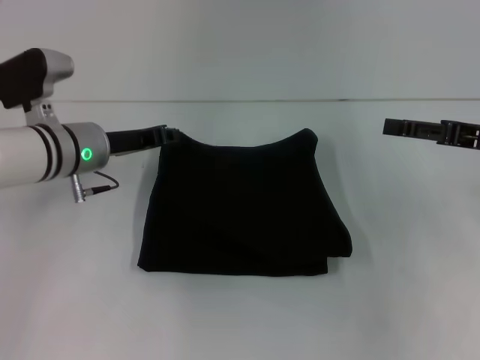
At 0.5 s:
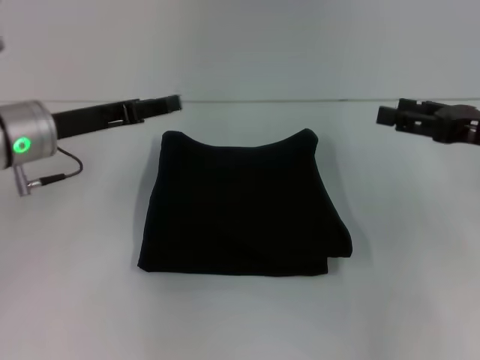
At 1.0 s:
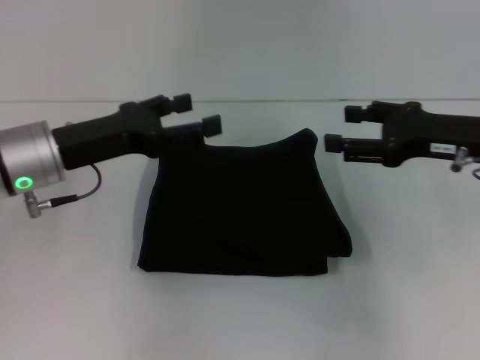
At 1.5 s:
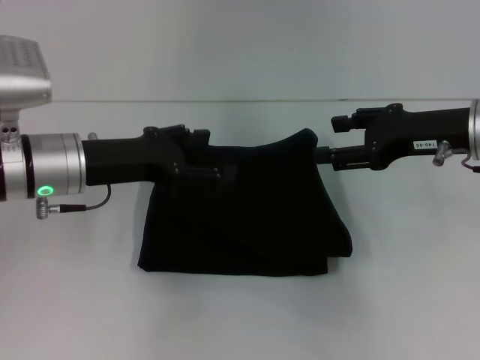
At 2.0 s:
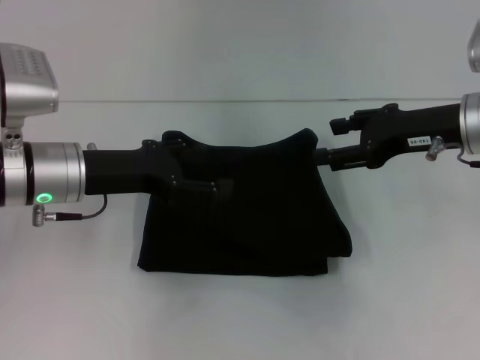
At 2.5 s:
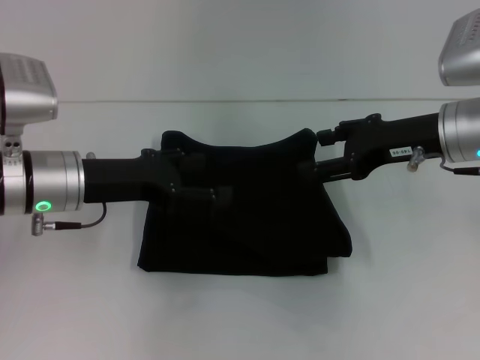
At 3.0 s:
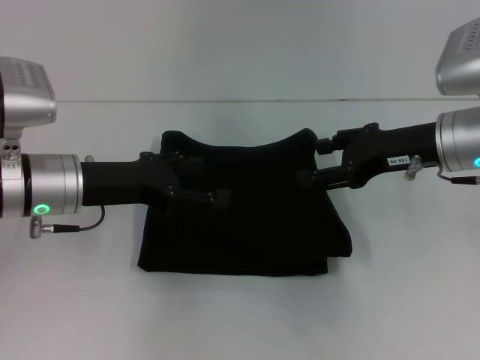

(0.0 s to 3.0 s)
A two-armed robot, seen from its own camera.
0.0 s - 1.5 s: The left gripper travels backward by roughly 5 cm, and opens its fingers. Meanwhile the right gripper heads to the left, covering some 5 cm.
1.5 s - 3.0 s: The grippers move only a little.

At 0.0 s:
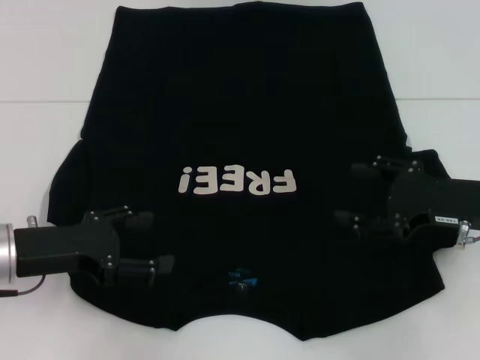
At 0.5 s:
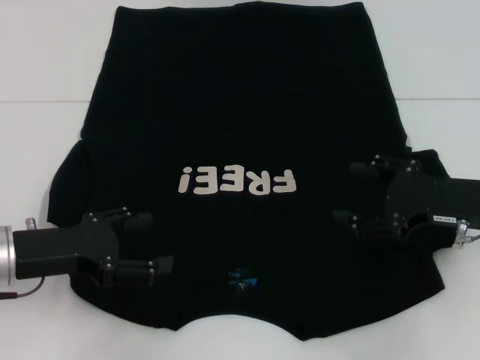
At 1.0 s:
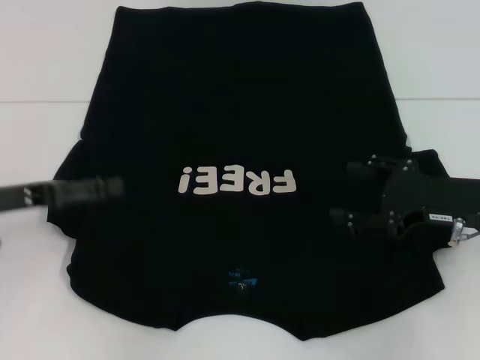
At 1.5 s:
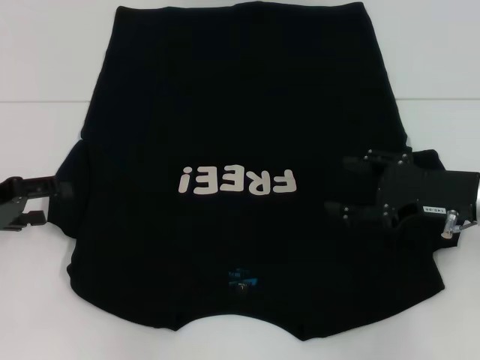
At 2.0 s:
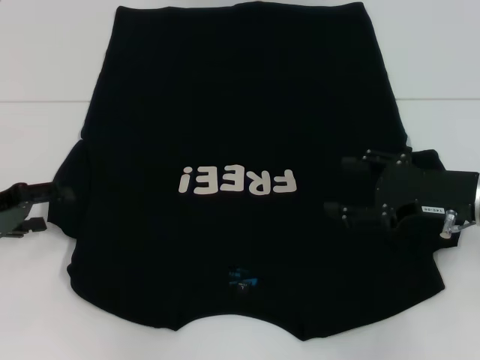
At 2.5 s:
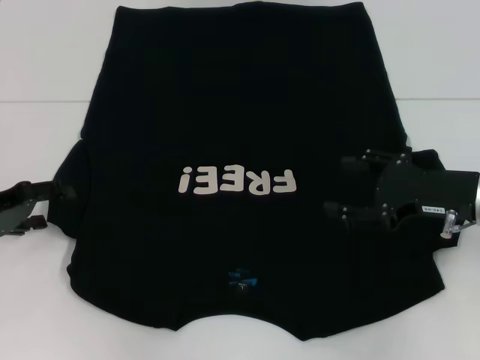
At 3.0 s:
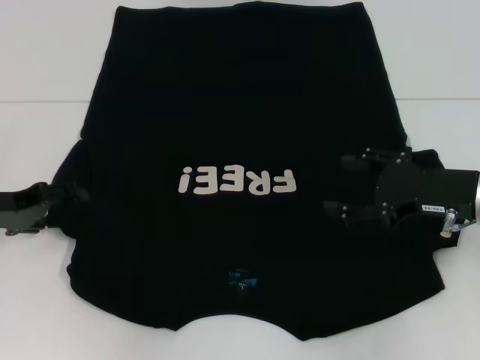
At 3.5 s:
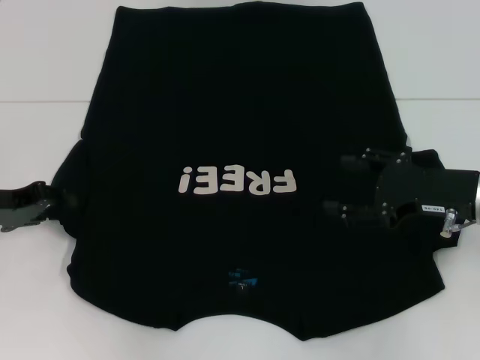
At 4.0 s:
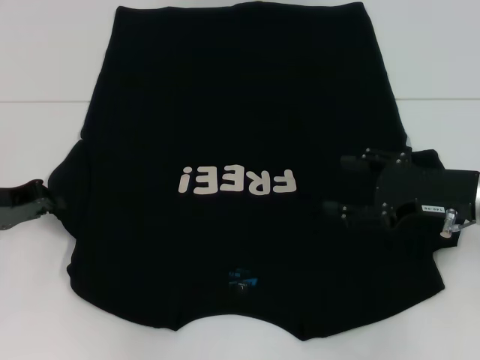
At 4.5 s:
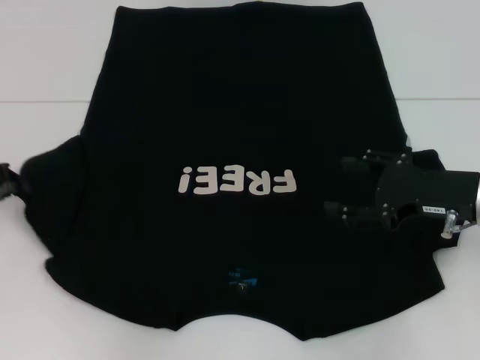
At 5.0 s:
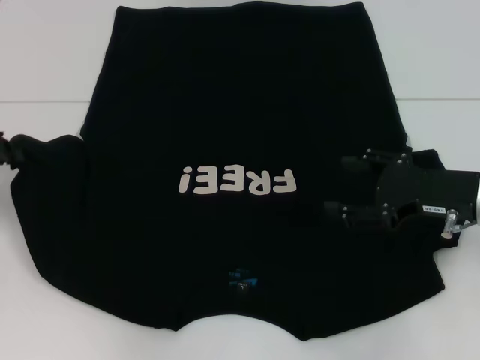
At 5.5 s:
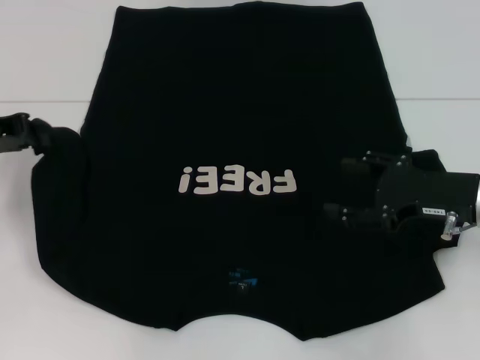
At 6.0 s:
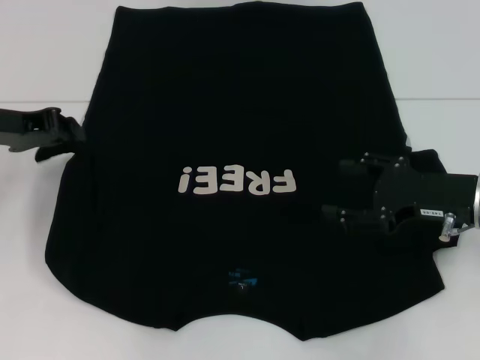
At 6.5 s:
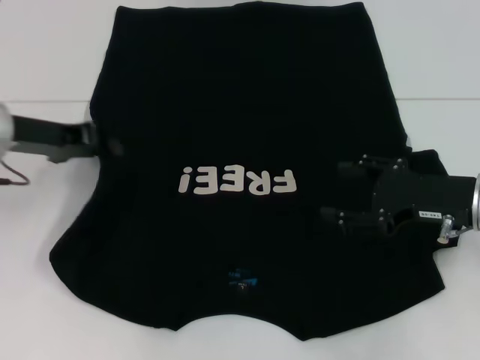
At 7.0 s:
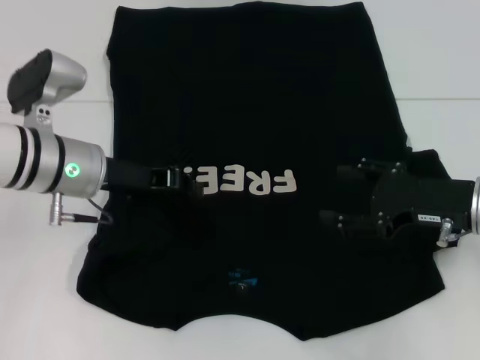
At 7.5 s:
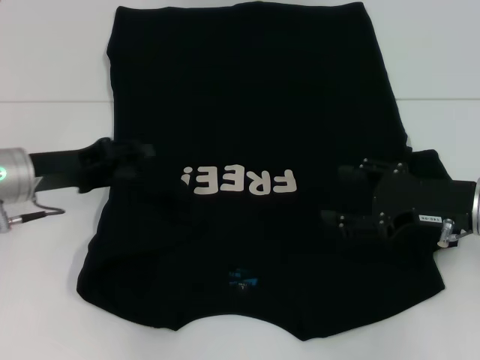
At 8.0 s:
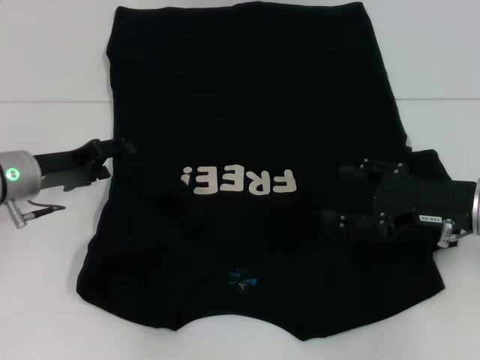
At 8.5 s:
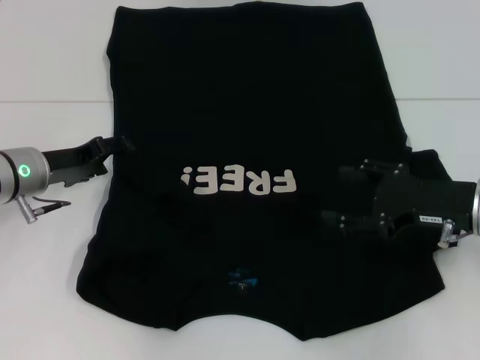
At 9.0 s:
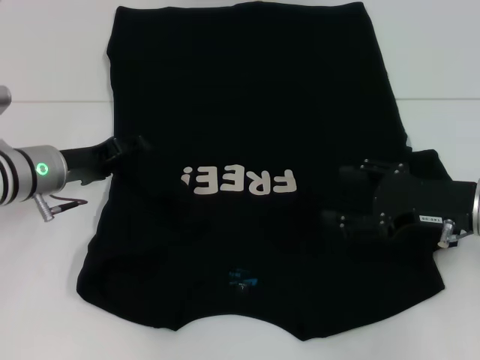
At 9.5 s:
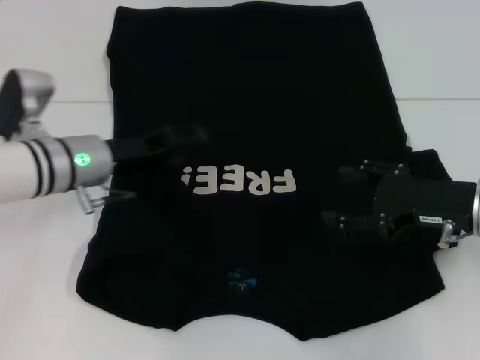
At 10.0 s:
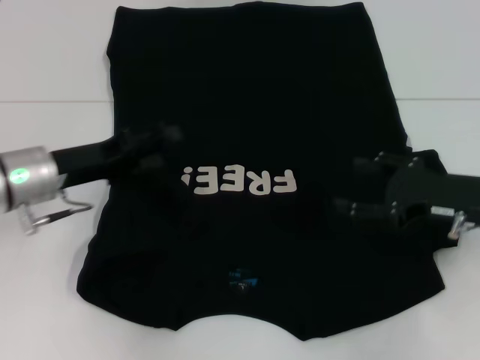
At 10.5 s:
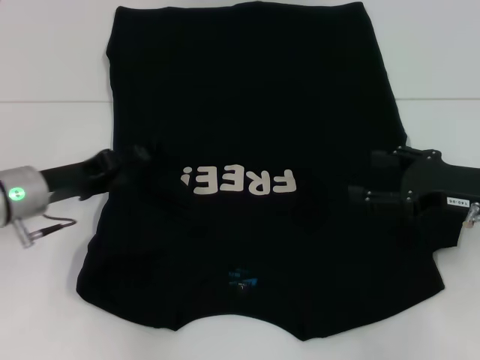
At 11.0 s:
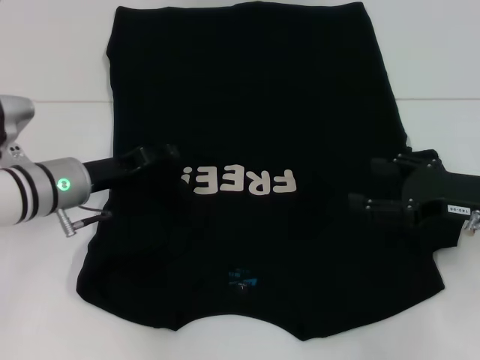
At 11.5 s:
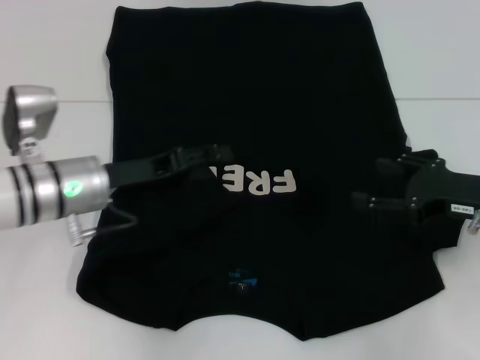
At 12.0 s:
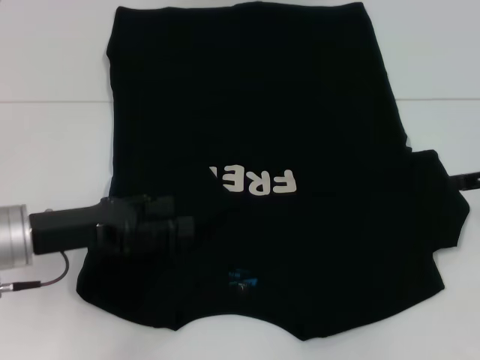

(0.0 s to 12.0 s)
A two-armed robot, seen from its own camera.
Step, 0.0 s - 11.5 s: Fold the bottom left sleeve with your left hand.
0.0 s - 2.0 s: The left gripper moves to the left, some 10 cm.
2.0 s - 4.0 s: The left gripper closes its fingers.
4.0 s - 6.0 s: The left gripper moves upward, about 10 cm.
6.0 s - 8.0 s: The left gripper travels downward by approximately 10 cm, reaches about 10 cm to the right, then returns, and opens its fingers.
10.0 s - 12.0 s: The right gripper is displaced to the right and upward by about 10 cm. Meanwhile the left gripper moves backward, about 5 cm.

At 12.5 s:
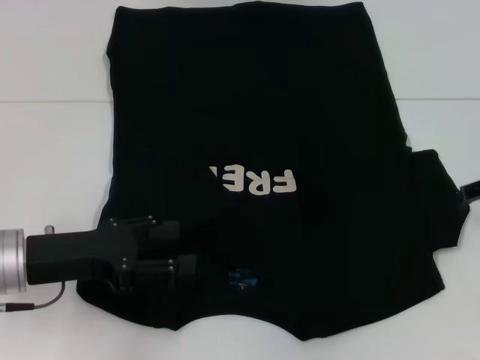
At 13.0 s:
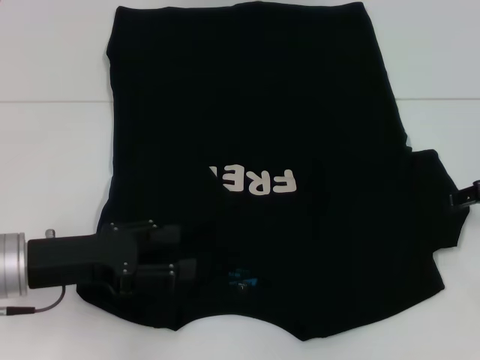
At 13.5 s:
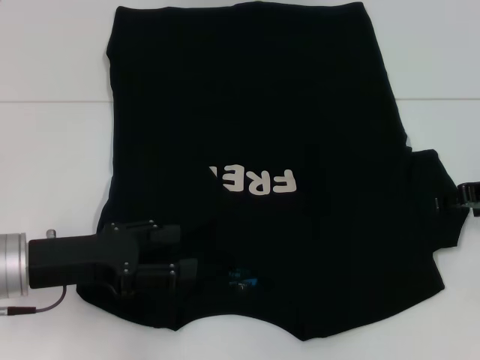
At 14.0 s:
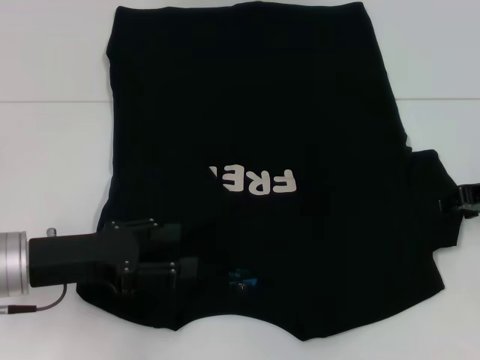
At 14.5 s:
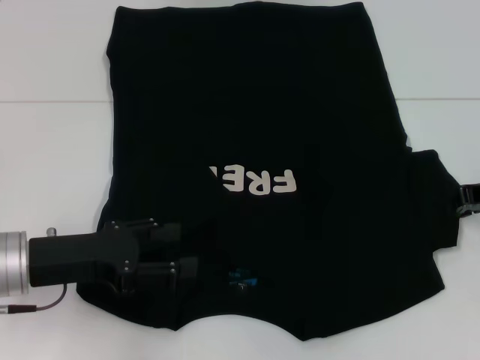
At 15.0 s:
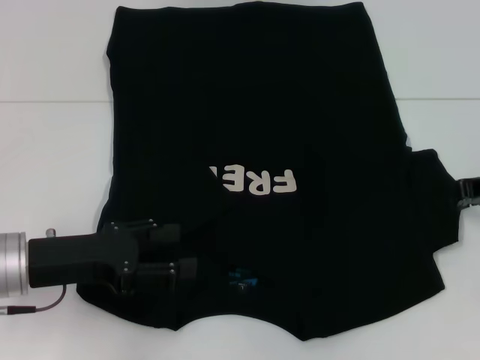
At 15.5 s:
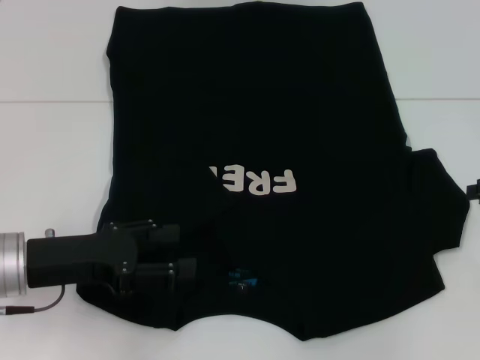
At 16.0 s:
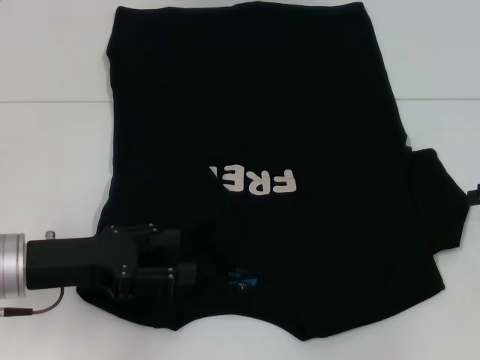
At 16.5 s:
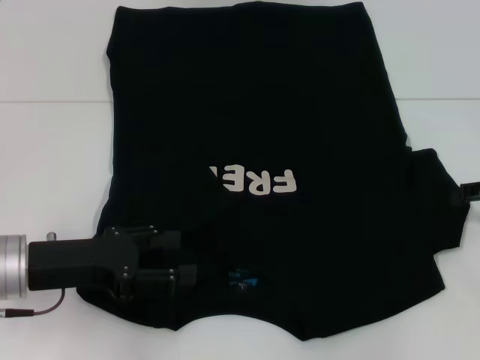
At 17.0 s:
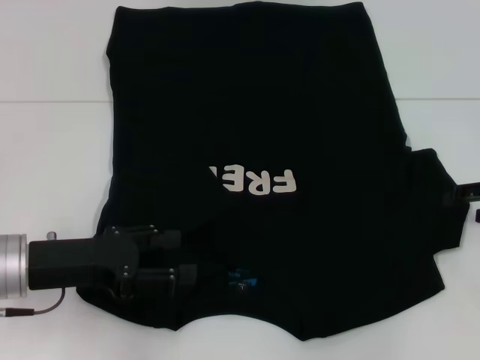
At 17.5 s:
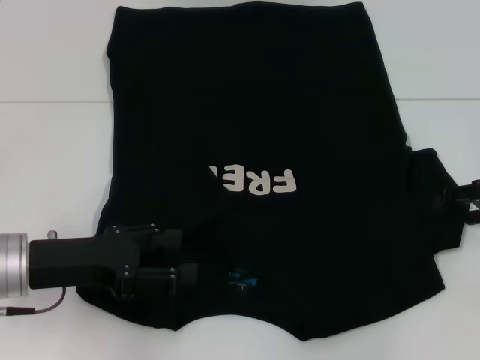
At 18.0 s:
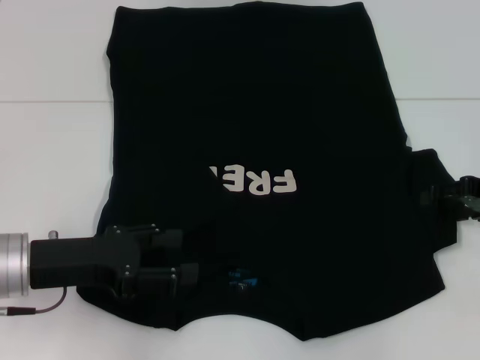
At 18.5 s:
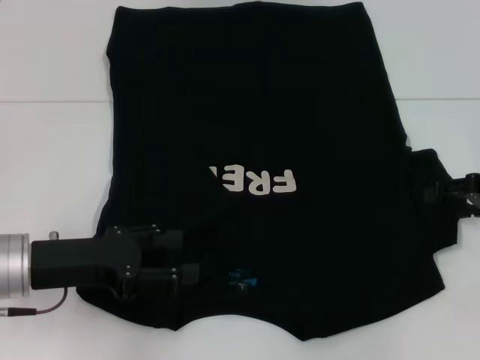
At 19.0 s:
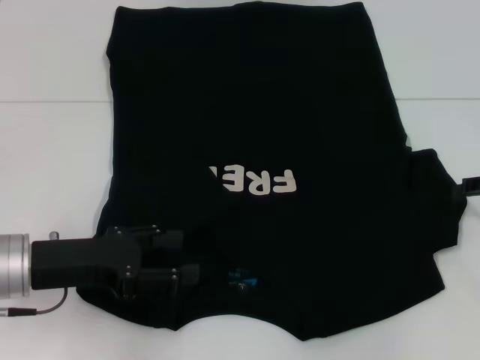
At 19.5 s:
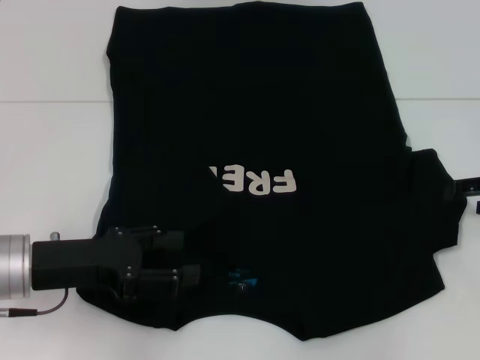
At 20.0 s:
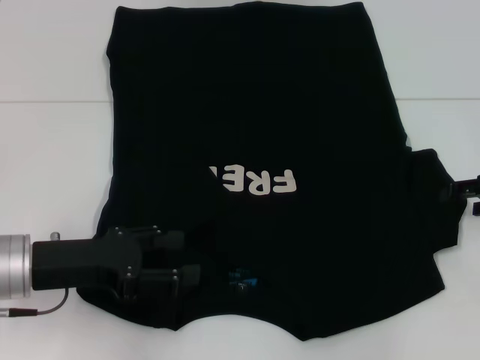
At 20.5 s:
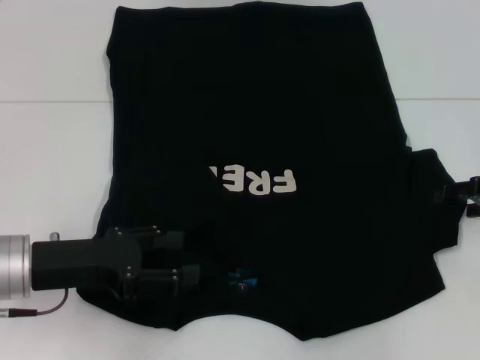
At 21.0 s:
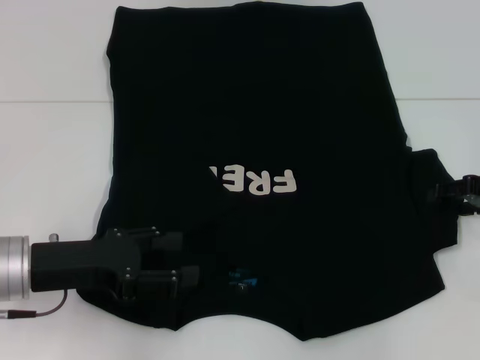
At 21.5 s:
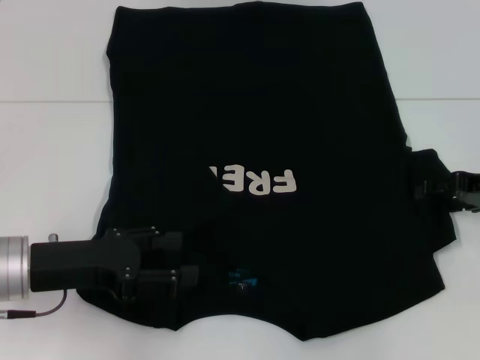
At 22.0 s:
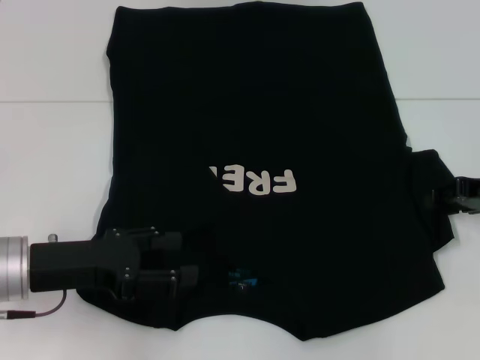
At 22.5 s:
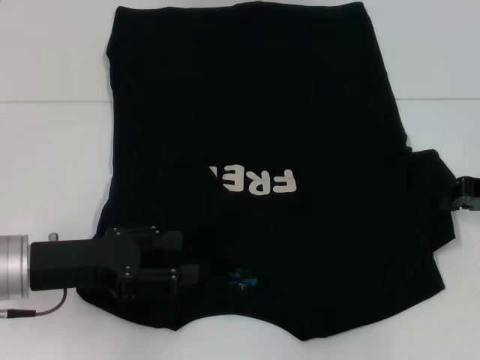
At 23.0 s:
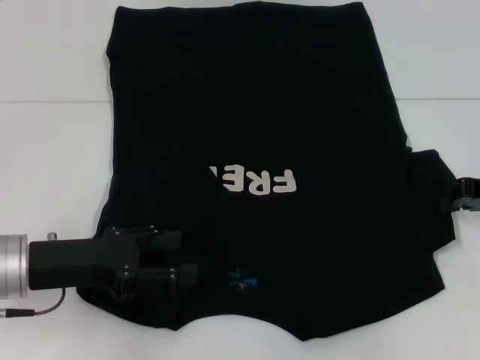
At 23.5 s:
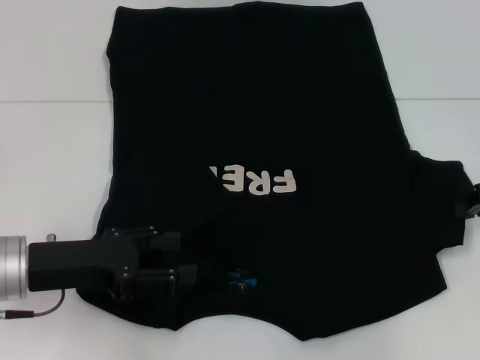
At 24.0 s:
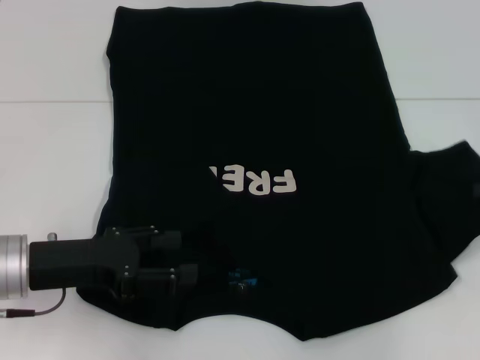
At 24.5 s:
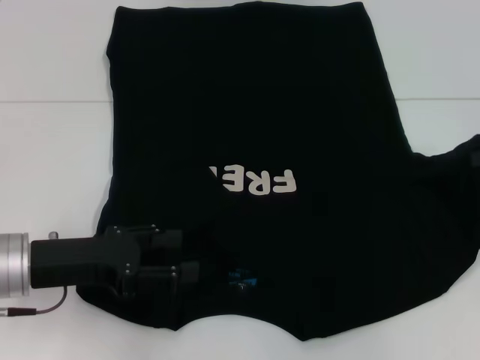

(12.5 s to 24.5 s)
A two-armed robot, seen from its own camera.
16.5 s - 18.5 s: The grippers move only a little.
20.5 s - 22.5 s: The right gripper closes up.
22.5 s - 24.5 s: The right gripper heads upward, covering some 5 cm.
